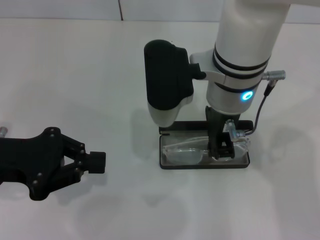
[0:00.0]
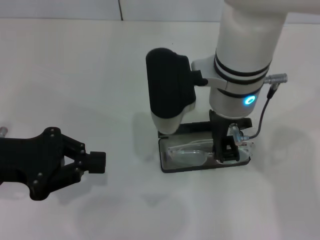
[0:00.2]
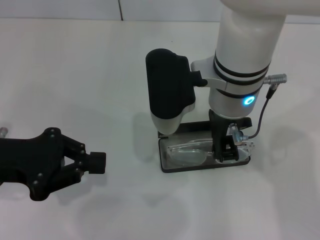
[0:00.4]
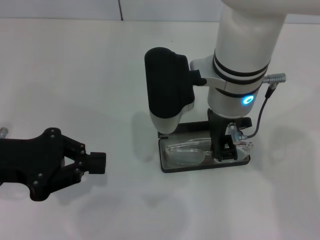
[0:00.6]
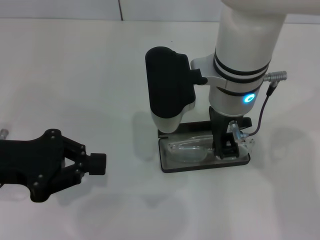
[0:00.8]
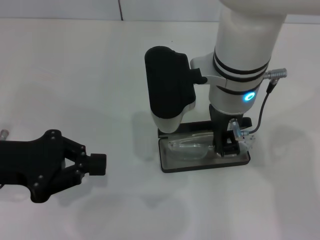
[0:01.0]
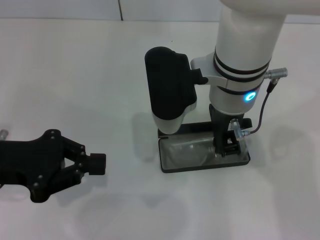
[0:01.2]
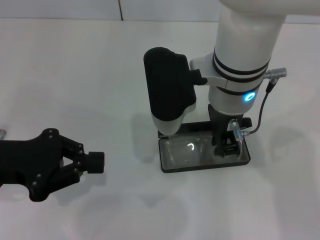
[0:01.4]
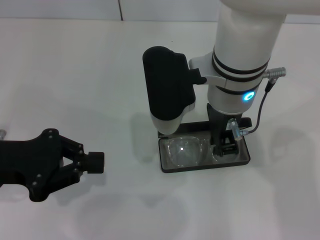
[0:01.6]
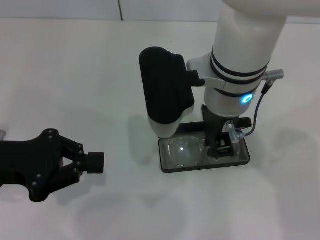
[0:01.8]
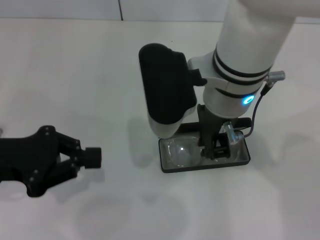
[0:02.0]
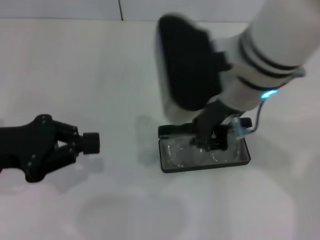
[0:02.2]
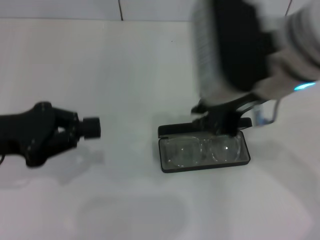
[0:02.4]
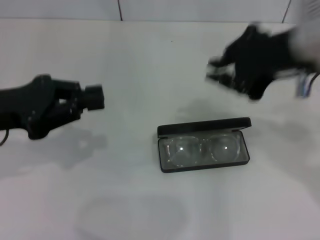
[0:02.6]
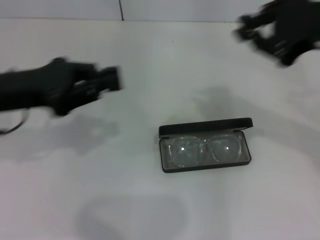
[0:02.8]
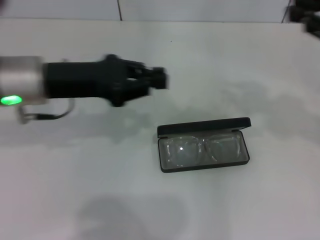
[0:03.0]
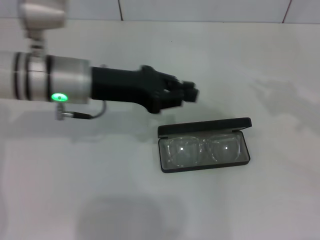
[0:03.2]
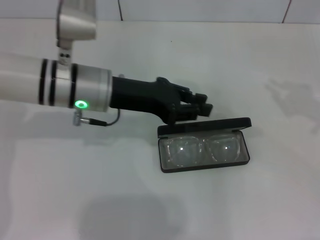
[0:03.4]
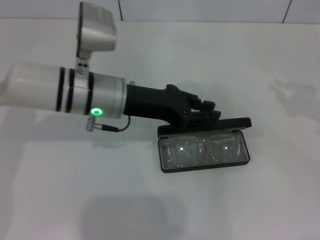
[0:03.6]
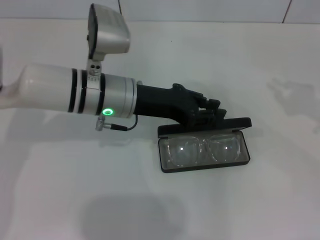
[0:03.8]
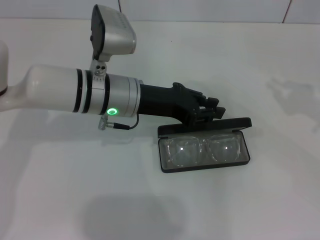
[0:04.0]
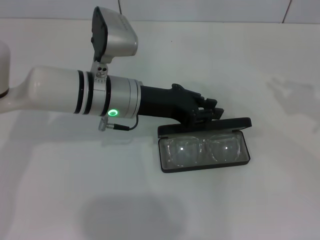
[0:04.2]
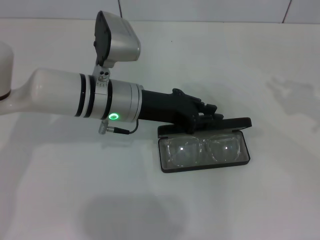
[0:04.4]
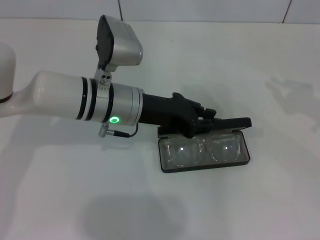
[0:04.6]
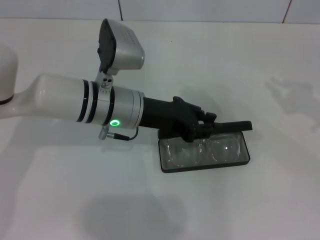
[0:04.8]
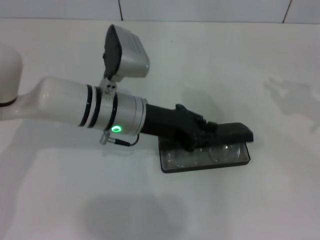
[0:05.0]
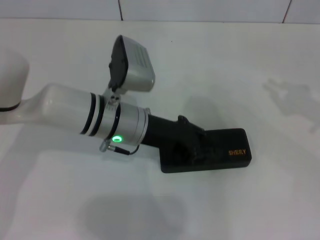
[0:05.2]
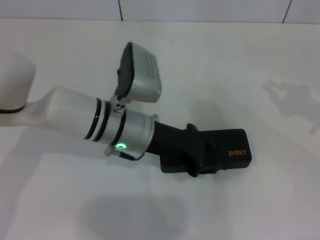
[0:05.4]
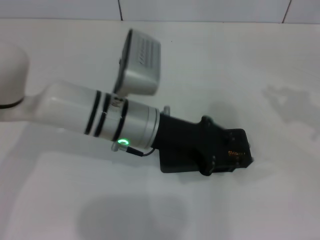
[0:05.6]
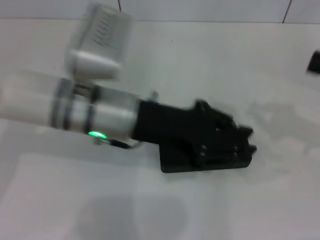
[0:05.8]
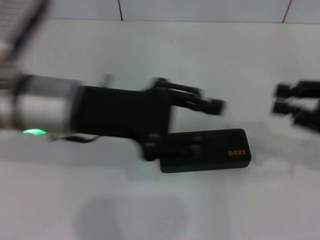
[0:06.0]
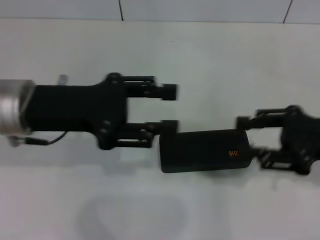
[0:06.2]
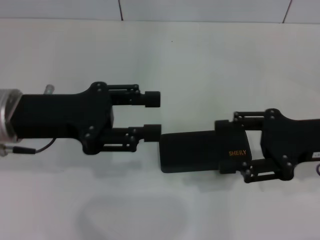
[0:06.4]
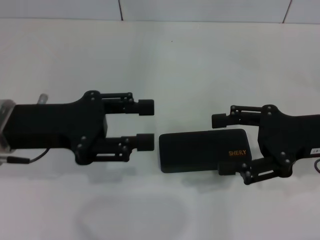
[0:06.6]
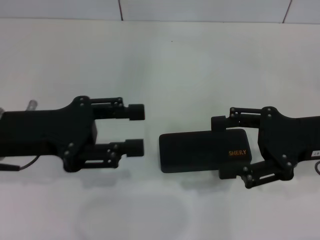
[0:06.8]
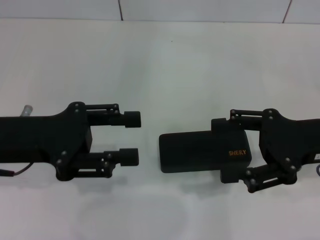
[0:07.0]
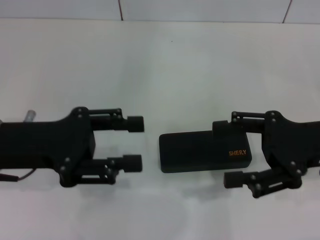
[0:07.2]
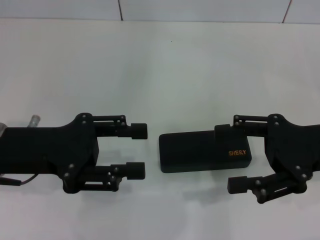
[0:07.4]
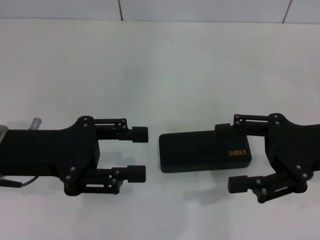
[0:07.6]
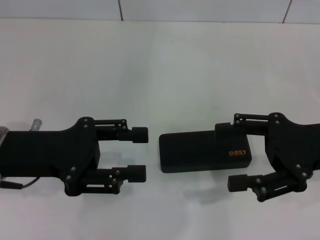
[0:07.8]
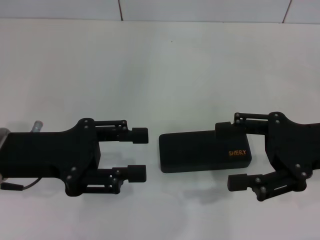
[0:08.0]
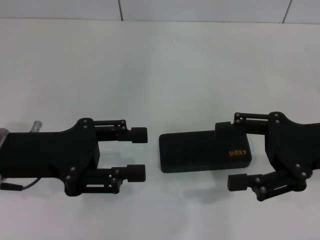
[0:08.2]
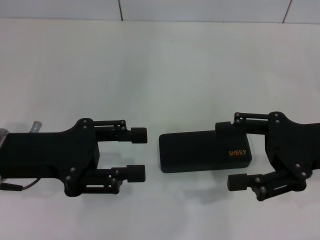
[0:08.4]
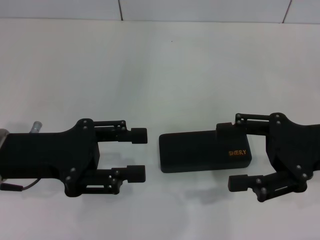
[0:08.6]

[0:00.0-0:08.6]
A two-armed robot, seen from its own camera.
Step, 1.8 to 5.0 s: Close the glasses case with your left hand.
0.0 to 1.4 s: There are only small adjustments of the grippers.
1.4 to 2.8 s: The right gripper heads to the right, covering roughly 20 cm; the left gripper goes approximately 5 cm forward.
2.8 to 4.4 s: The two grippers go roughly 15 cm to the right and downward.
4.4 to 5.8 s: The left gripper shifts approximately 5 cm upward and backward.
5.8 to 7.2 s: The two grippers go some 10 cm to the left. The right gripper opens its fingers.
7.2 to 8.6 s: Neither gripper changes place.

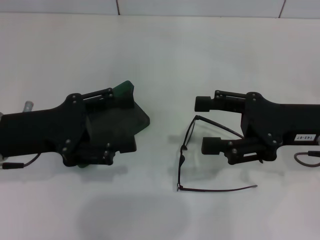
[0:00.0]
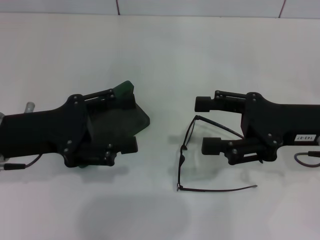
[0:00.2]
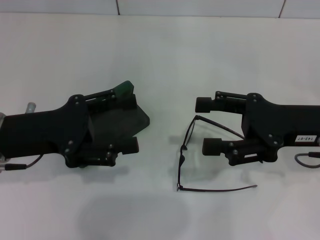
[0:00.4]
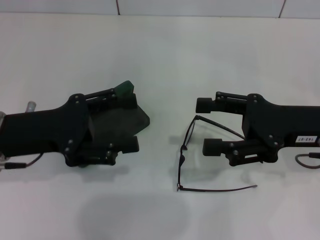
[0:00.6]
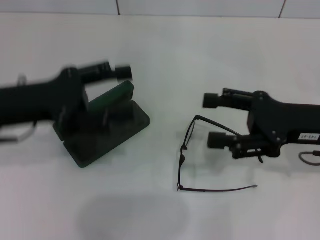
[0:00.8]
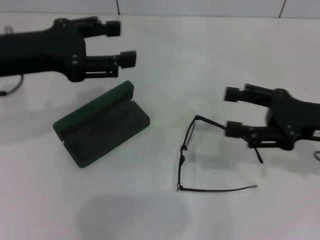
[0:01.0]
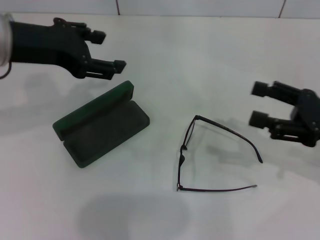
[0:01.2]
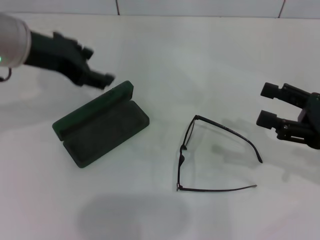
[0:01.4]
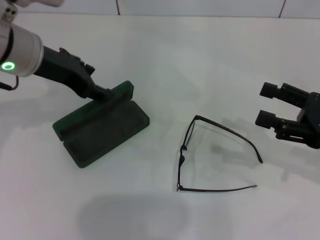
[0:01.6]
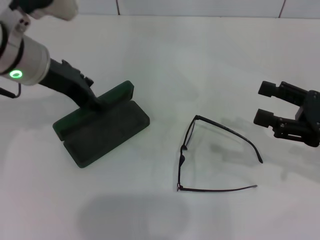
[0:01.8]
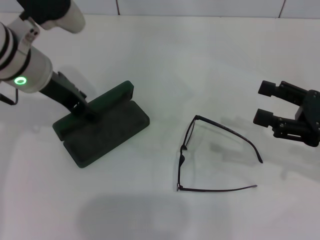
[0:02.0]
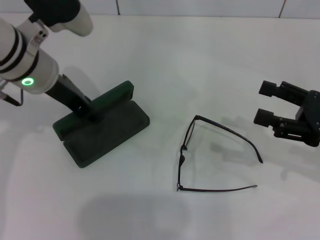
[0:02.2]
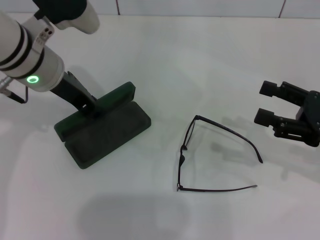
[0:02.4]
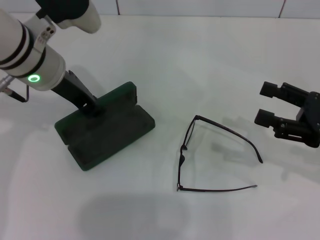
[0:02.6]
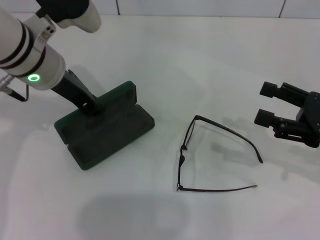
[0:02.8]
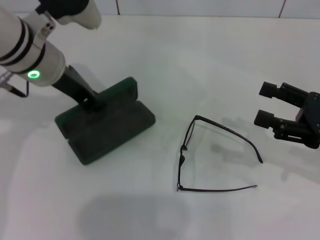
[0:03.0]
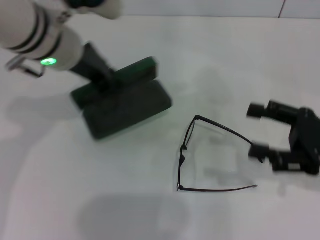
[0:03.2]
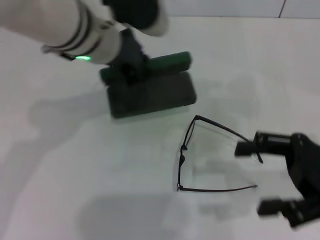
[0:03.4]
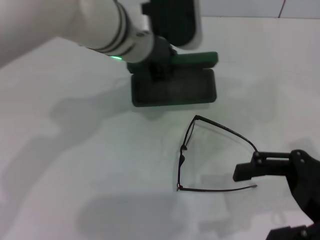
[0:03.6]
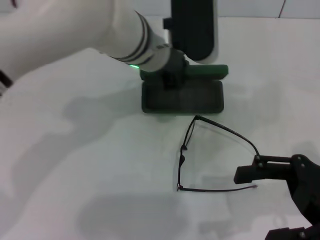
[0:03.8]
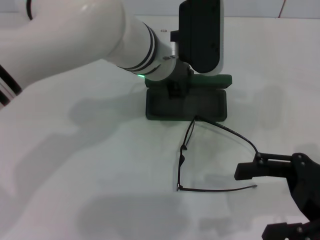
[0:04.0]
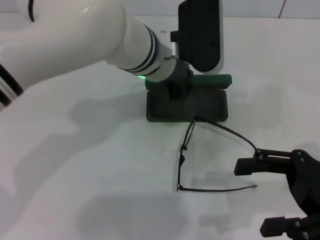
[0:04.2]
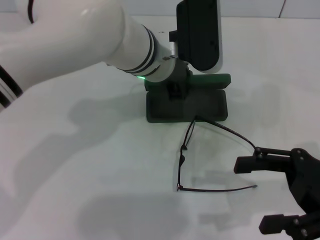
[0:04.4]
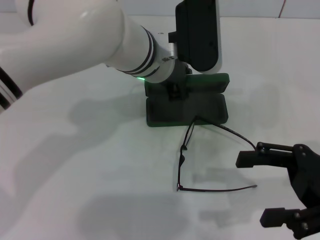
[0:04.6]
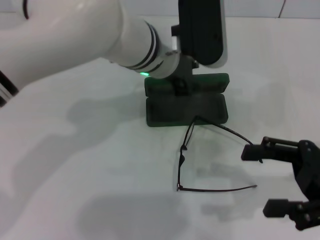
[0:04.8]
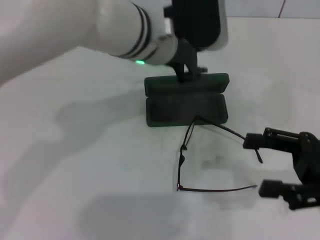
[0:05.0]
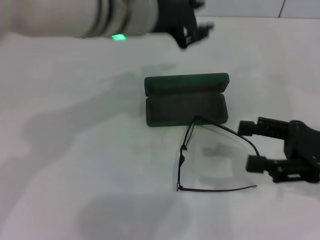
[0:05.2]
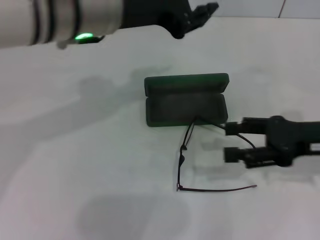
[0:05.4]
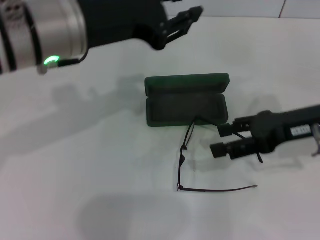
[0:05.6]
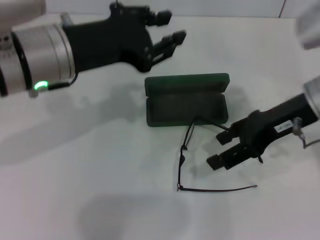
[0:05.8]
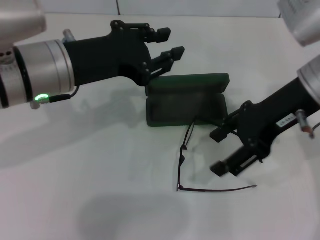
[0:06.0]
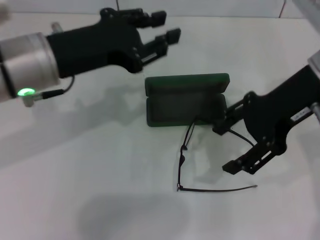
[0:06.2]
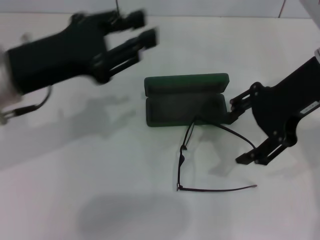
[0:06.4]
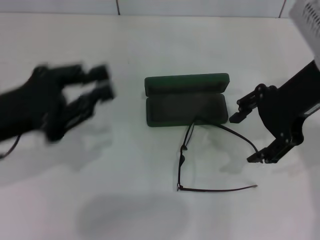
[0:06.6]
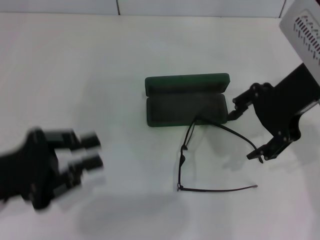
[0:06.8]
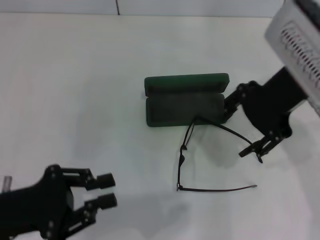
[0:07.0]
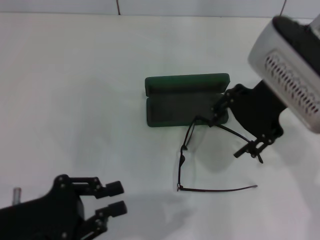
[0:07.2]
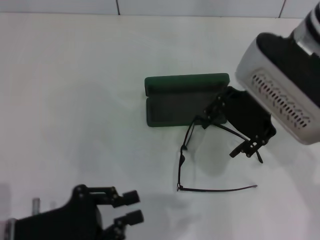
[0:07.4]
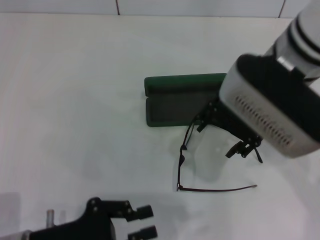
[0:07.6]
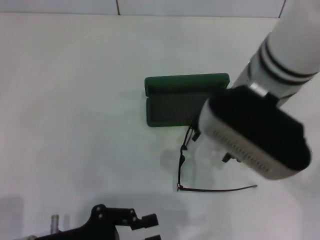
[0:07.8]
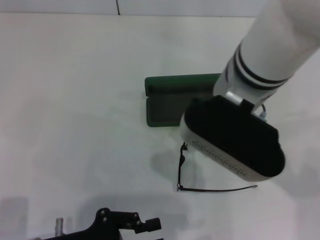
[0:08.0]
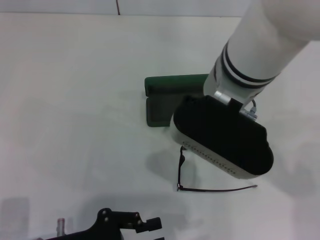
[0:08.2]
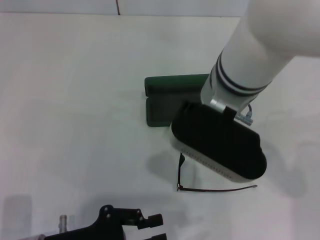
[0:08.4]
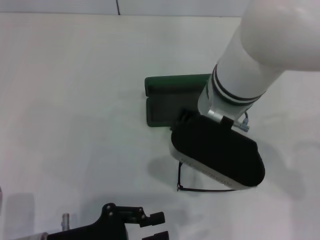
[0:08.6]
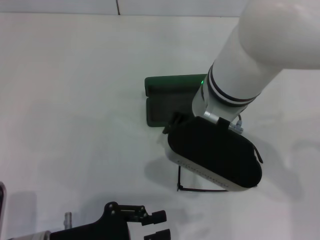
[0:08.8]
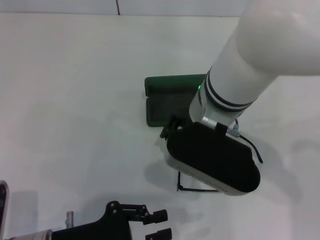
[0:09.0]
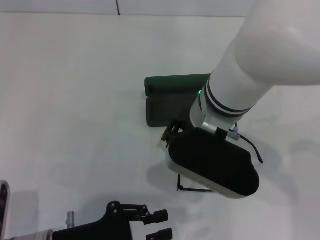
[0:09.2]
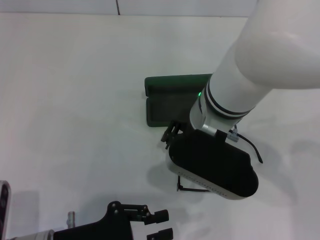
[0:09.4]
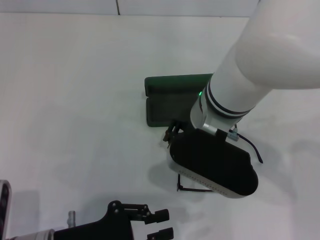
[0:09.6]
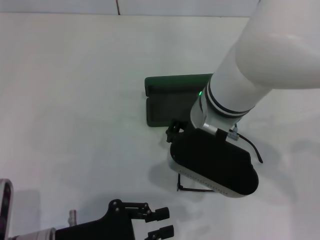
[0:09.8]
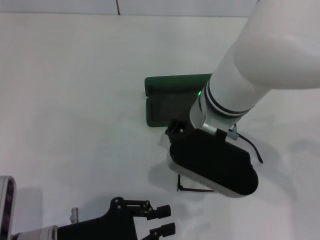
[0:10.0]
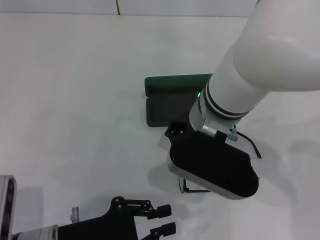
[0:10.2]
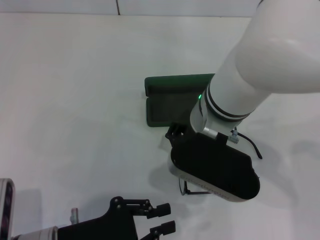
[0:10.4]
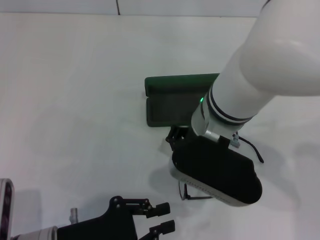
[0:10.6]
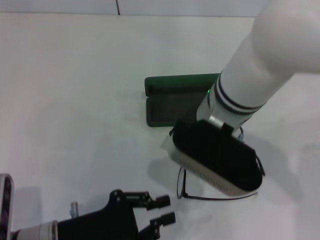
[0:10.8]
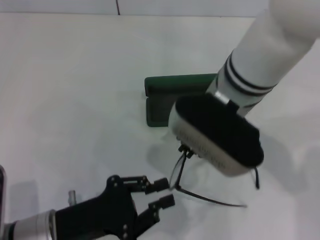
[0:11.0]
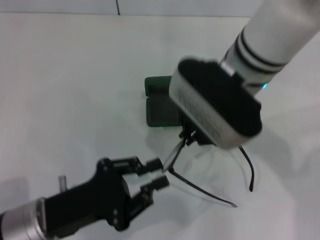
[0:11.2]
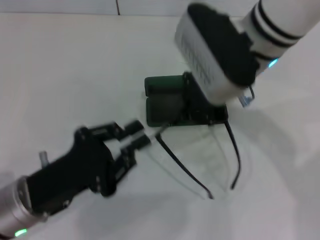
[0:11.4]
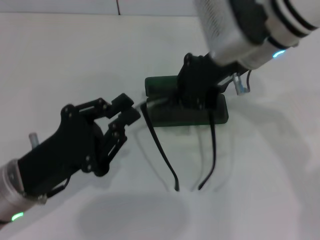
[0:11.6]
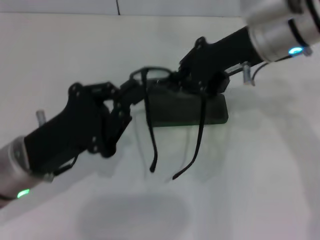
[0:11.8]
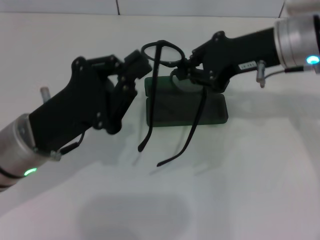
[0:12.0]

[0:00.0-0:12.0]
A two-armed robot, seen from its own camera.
Step, 0.0 to 2.6 s: Grab the glasses case with your left hand.
Step, 3.0 to 4.4 s: Place the glasses case in the center of the table with your left hand.
Step, 4.8 to 10.2 s: Grab the eyeglass frame with your right hand.
0.0 to 1.6 s: The right gripper goes about 5 cm to the right, while the left gripper is displaced forward, upward and to the right by approximately 15 cm.
1.6 to 3.0 s: The left gripper closes its fingers.
3.0 to 4.4 s: The left gripper shifts roughly 15 cm to the right.
4.4 to 6.0 s: The left gripper travels to the left and backward by about 15 cm. The right gripper heads upward, to the left and forward, covering roughly 15 cm.
6.0 to 7.6 s: The right gripper is displaced to the left by approximately 5 cm; the left gripper shifts roughly 20 cm downward and backward.
7.6 to 9.0 s: The right gripper travels to the left and downward by about 10 cm.
9.0 to 10.4 s: The right gripper closes.
10.4 to 12.0 s: The left gripper is displaced forward and upward by some 10 cm; the right gripper moves to the right and forward, some 15 cm.

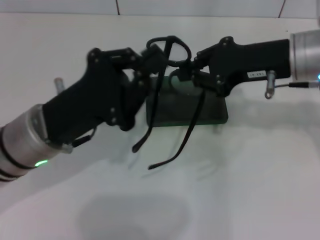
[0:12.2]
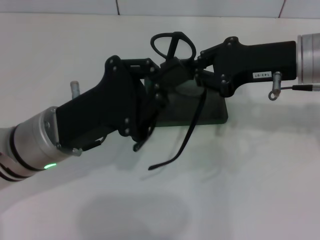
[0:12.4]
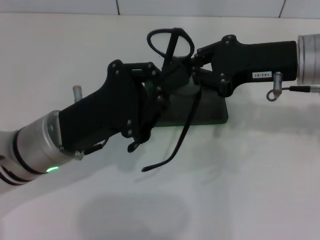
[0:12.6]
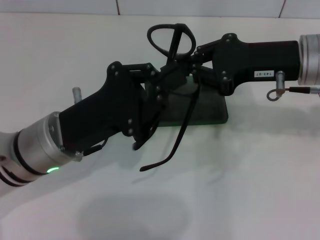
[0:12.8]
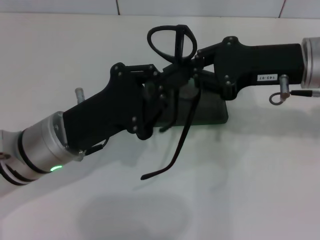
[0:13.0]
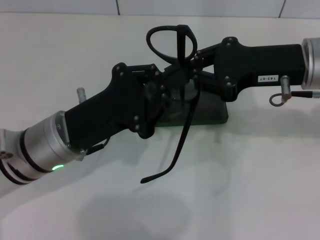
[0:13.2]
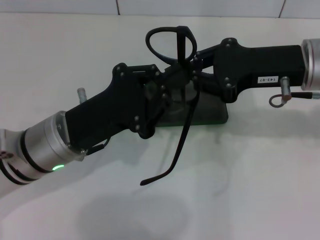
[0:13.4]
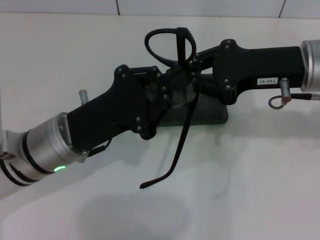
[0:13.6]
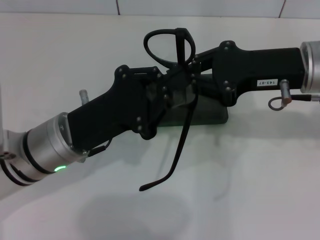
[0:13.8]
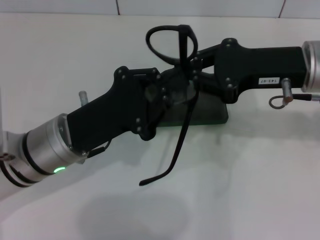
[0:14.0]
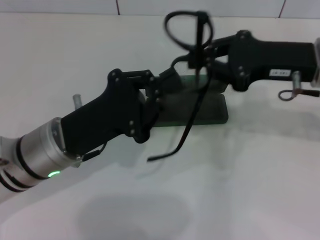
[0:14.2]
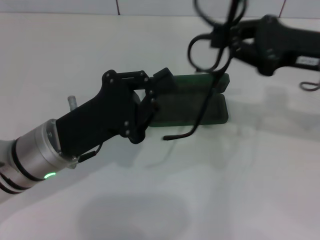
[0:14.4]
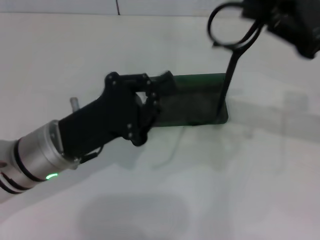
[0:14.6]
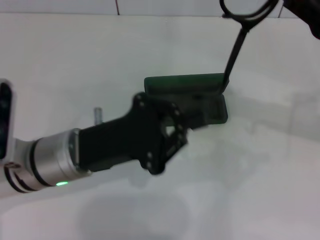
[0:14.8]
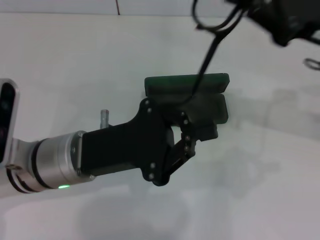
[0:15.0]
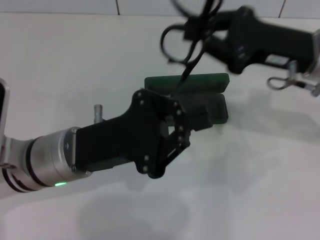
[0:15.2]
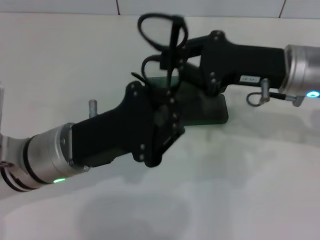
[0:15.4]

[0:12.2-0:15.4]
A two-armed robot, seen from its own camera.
13.8 to 15.4 s: The right gripper moves about 5 cm to the right and comes back.
